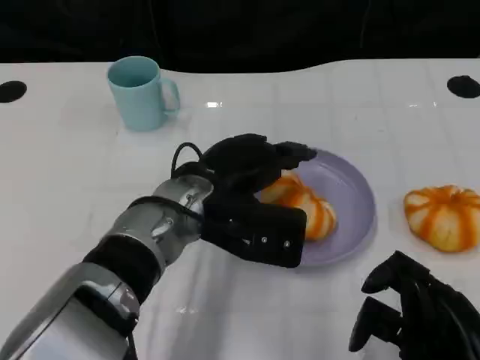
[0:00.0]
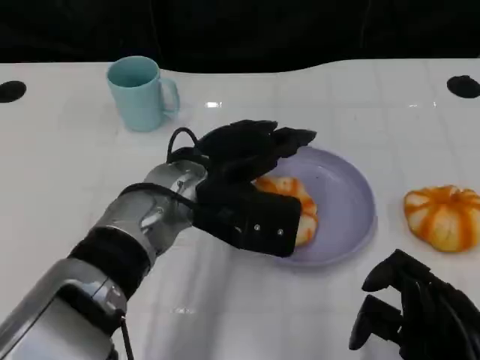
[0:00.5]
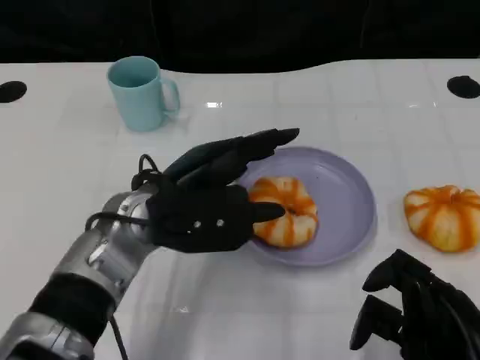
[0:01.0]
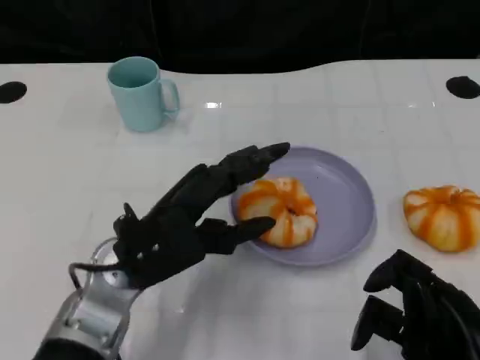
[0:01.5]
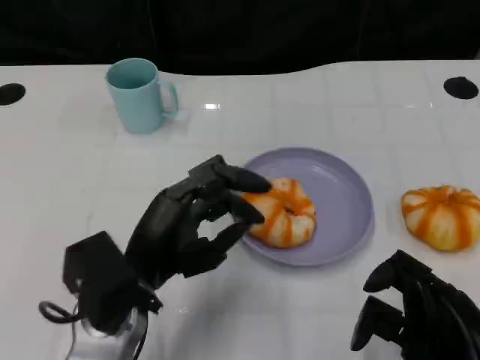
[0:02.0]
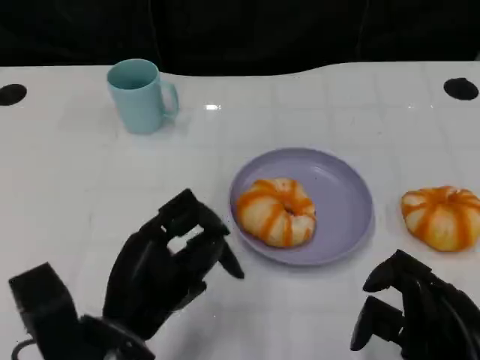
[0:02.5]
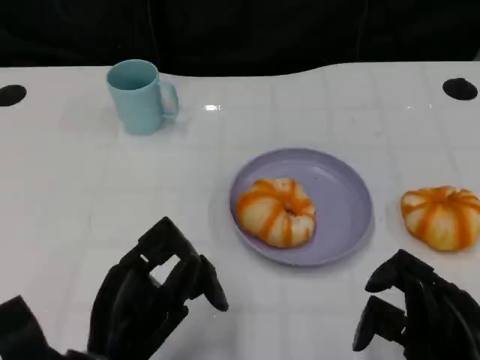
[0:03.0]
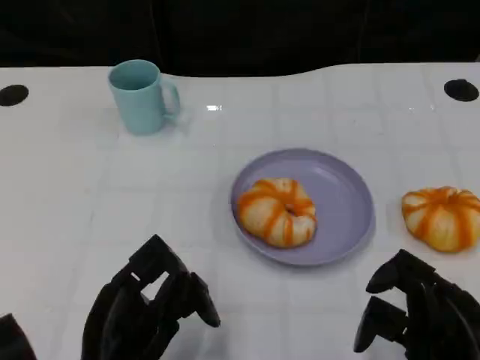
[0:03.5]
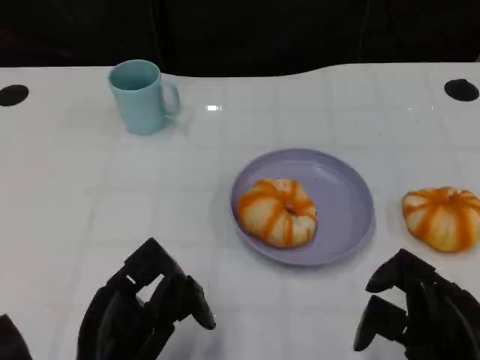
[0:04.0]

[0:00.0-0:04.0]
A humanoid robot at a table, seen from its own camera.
Task of the whole recording: Grasp the bread from the table and place it into the plate.
0:00.0 to 0:02.0: The left hand heads backward and to the left, covering some 10 cm.
0:02.0 to 0:04.0: The left hand goes approximately 5 cm backward.

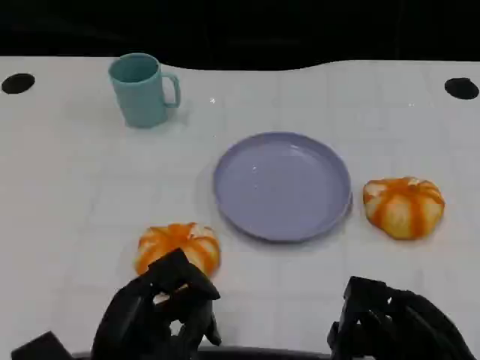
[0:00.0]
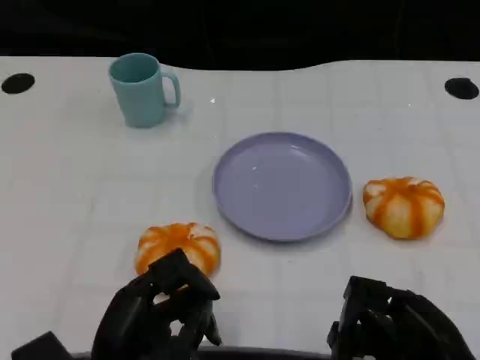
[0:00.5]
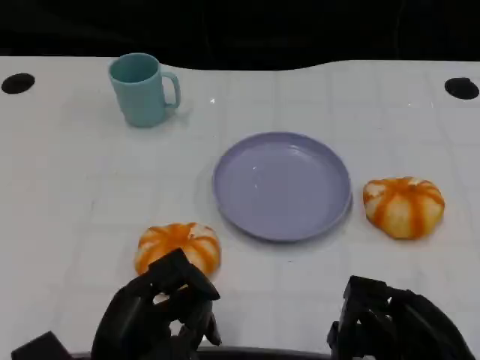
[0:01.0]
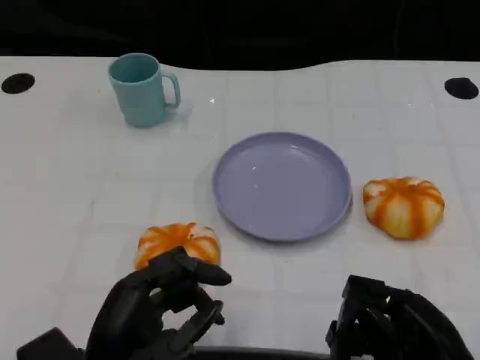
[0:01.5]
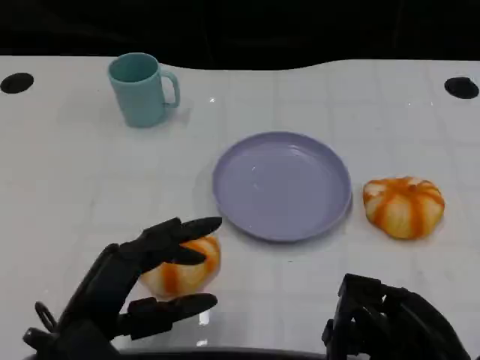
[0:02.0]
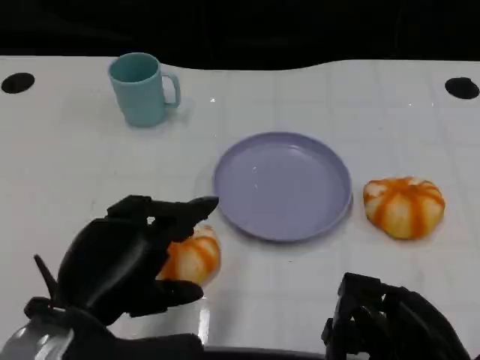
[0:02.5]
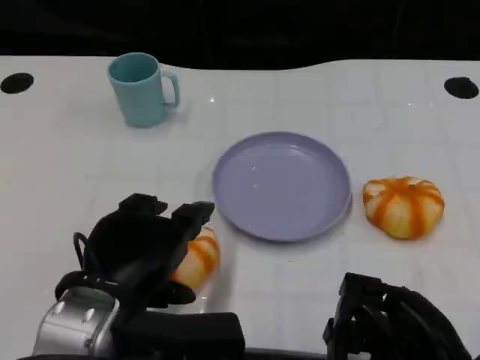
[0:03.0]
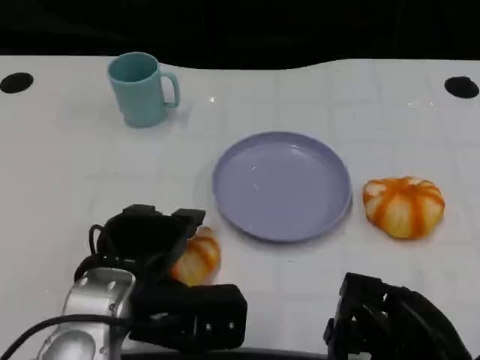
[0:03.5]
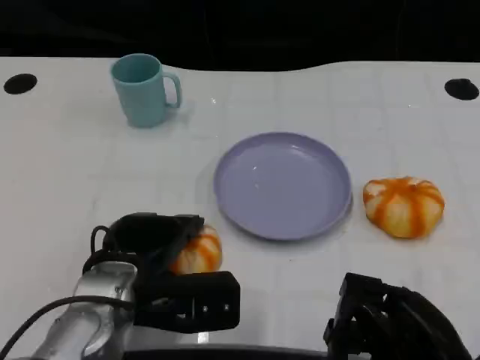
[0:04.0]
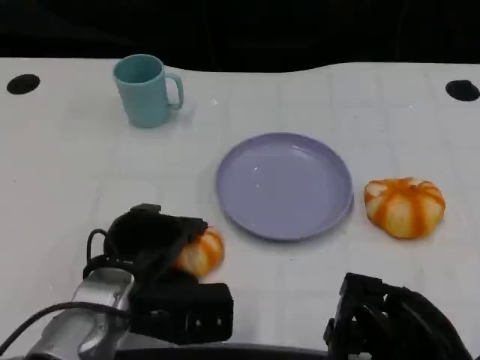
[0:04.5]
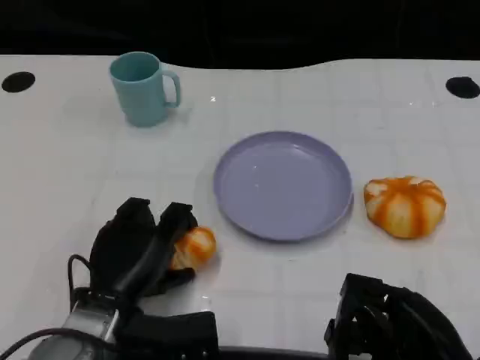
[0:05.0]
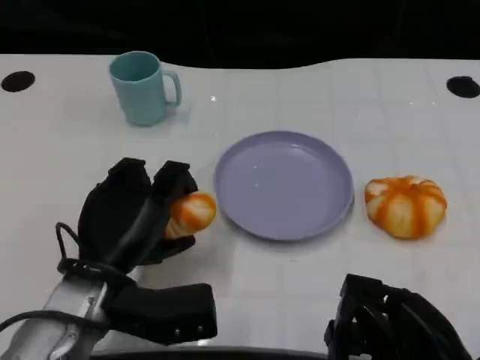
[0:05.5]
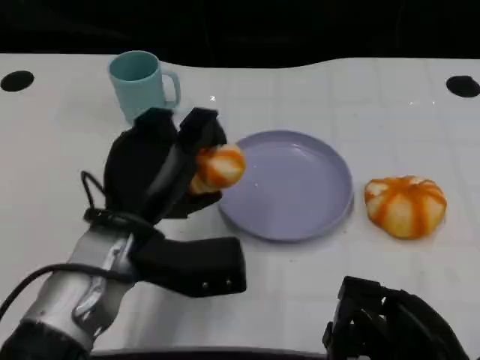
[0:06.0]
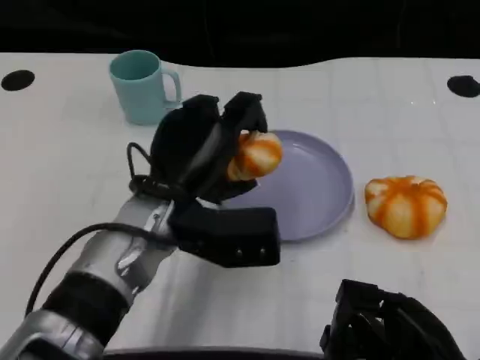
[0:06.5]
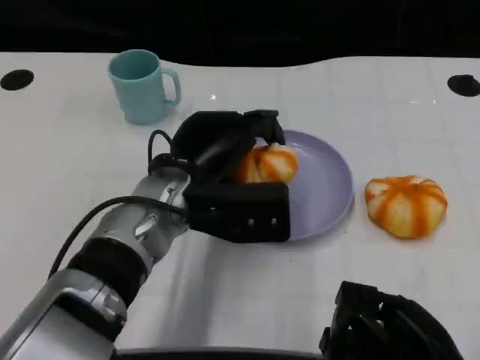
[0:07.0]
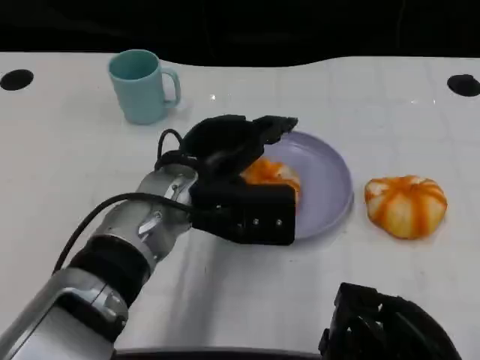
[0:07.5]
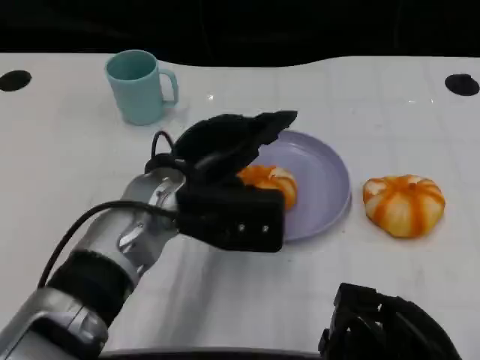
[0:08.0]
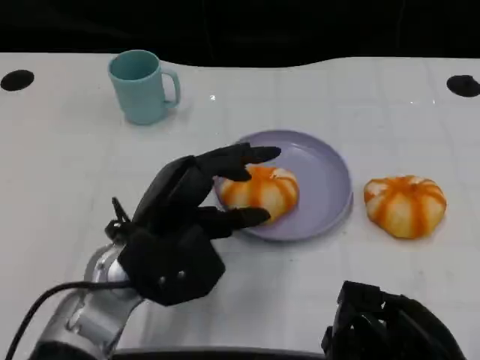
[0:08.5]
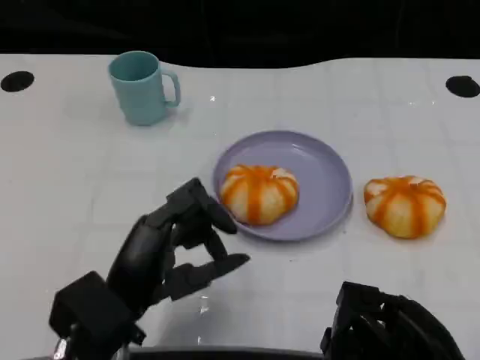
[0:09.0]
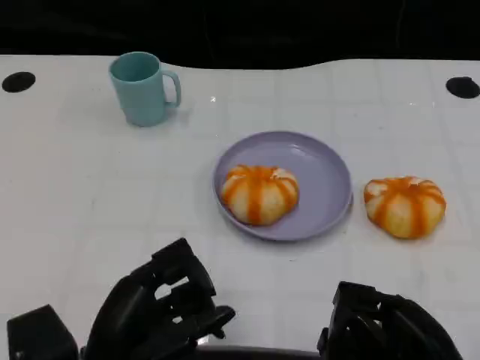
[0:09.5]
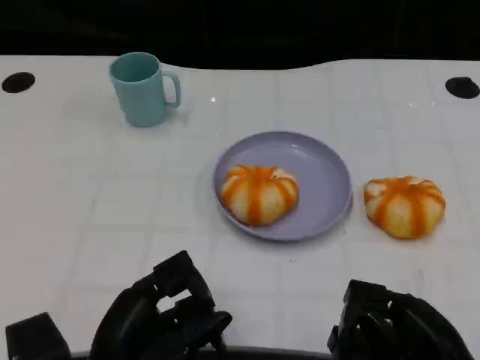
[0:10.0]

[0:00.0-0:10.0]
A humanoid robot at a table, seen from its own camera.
Task of the whole recording: Grasp the bread from the table and place it into the plate.
0:00.0 to 0:02.0: The left hand travels upward by approximately 5 cm.
0:02.0 to 0:04.0: The left hand goes about 10 cm forward and to the right.
0:04.0 to 0:06.0: The left hand moves some 5 cm.
0:06.0 to 0:08.0: The left hand ends up some 5 cm from where it was.
0:08.0 to 0:10.0: The left hand is displaced backward, downward and to the left by about 20 cm.

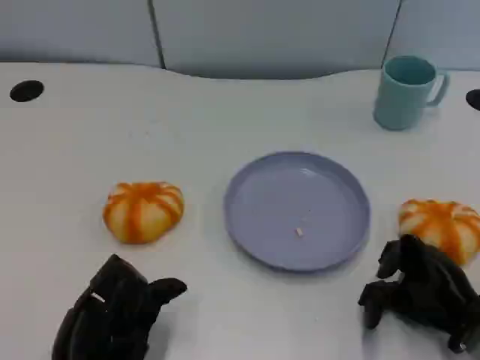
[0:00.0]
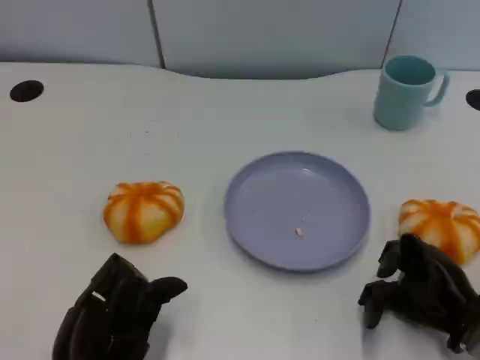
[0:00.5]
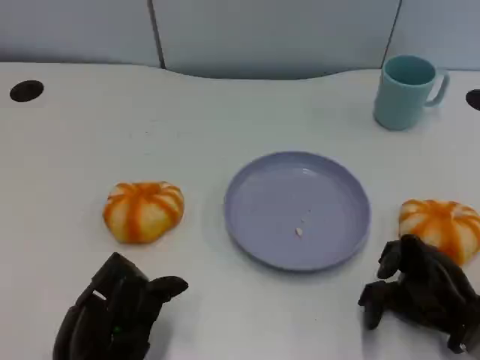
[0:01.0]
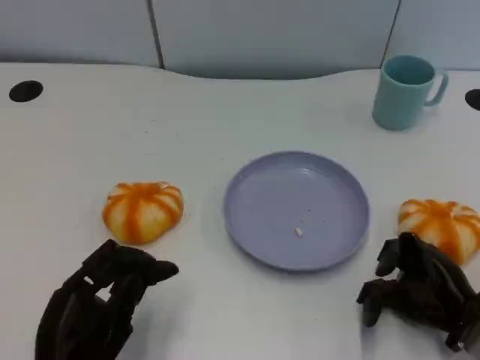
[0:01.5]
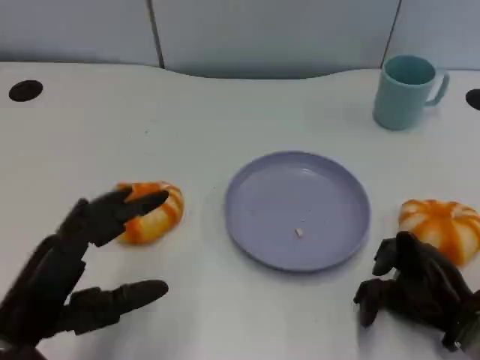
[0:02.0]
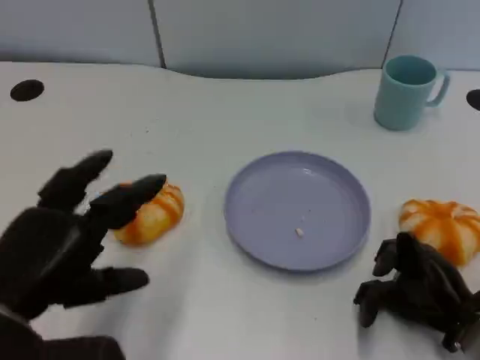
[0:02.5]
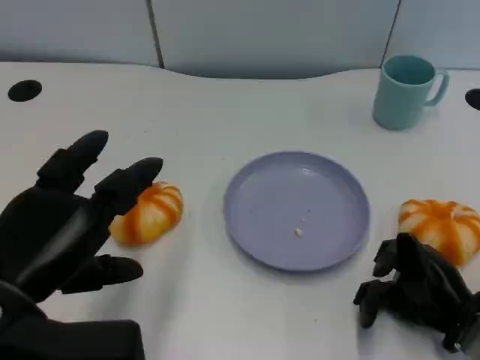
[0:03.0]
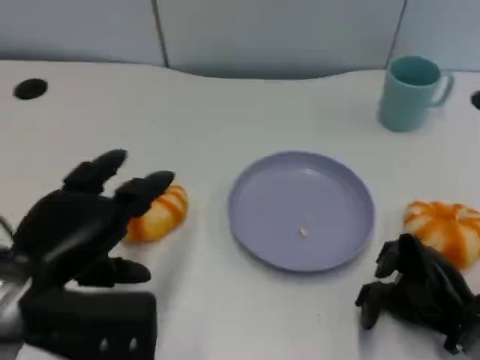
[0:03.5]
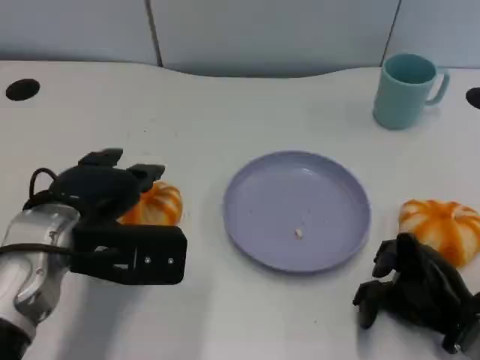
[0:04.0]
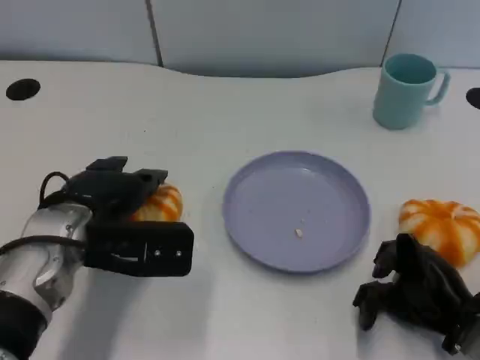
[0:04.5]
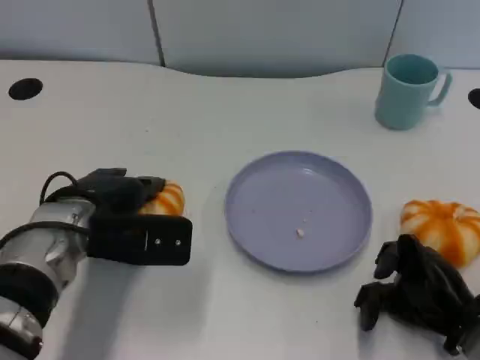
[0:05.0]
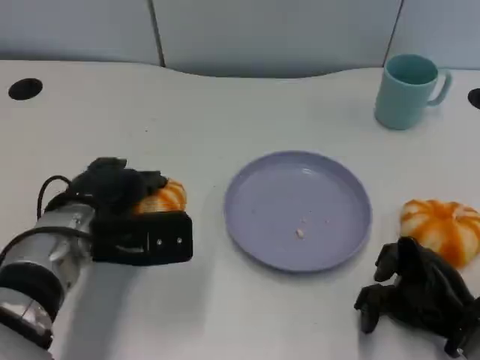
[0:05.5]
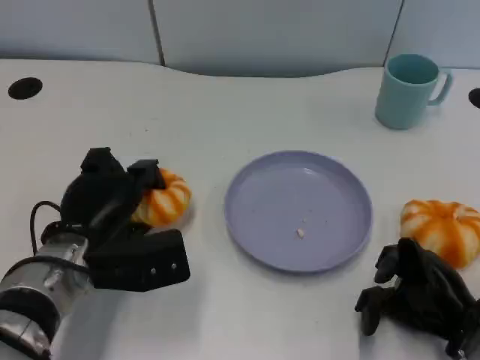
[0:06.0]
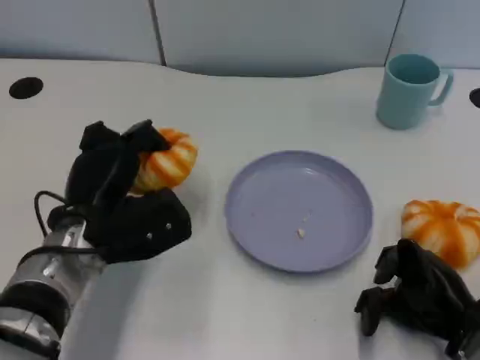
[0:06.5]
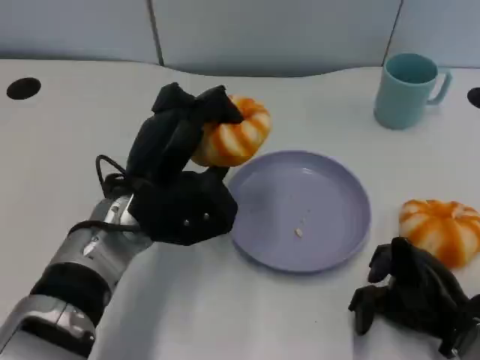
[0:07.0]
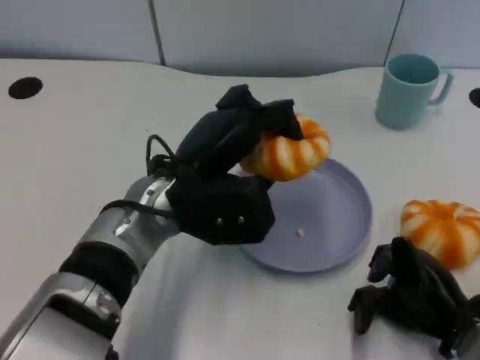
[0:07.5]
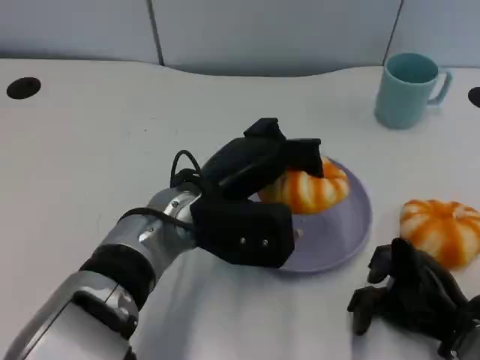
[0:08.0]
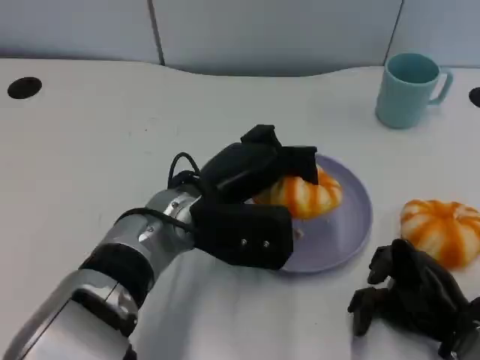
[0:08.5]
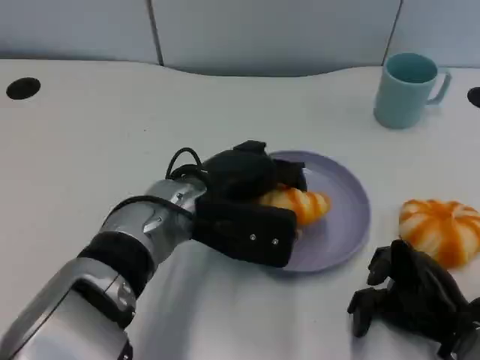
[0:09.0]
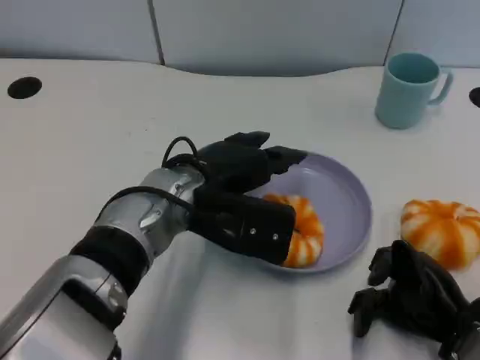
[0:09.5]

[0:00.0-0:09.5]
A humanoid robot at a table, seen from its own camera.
Task of the whole recording: Grasp the bread from the table and place it into the plate.
0:00.0 to 0:02.0: The left hand shifts approximately 10 cm upward.
0:02.0 to 0:04.0: The left hand goes some 15 cm forward.
0:04.0 to 0:05.5: The left hand shifts by some 5 cm.
0:05.5 to 0:07.5: The left hand moves to the right and upward, about 10 cm.

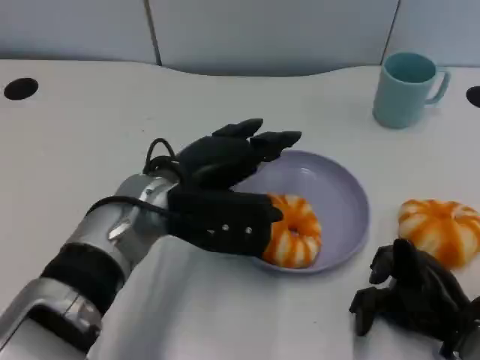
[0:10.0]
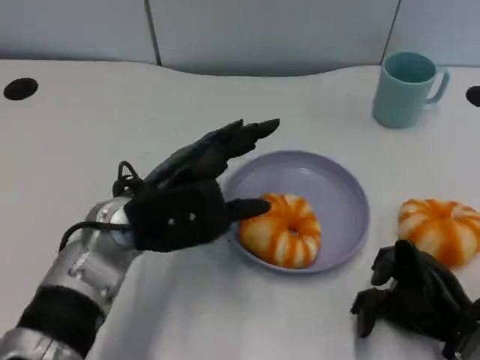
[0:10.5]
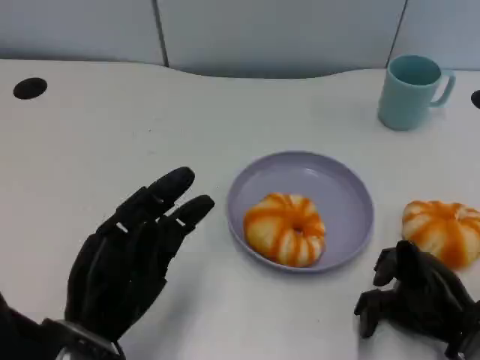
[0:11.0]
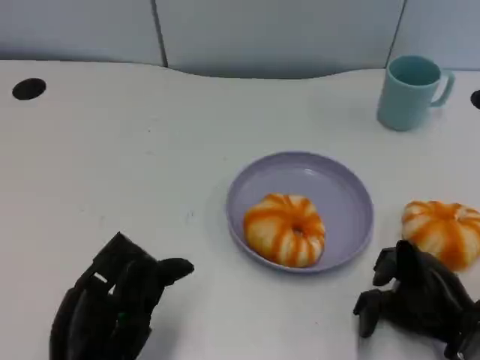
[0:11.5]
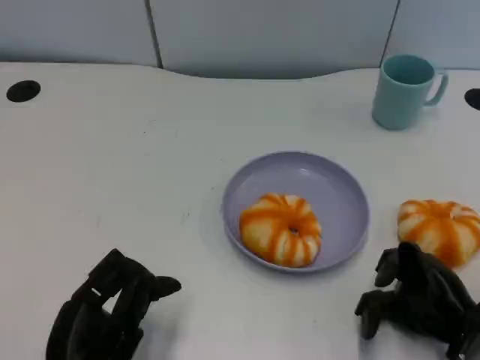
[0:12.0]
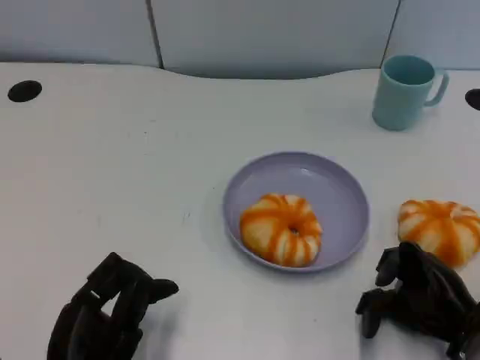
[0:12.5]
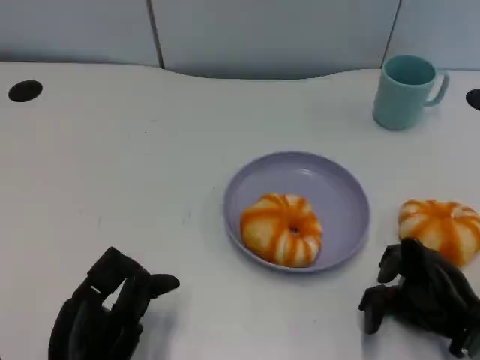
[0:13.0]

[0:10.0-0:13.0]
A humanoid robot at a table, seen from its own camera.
Task of the whole recording: Grasp the bread from the table and place it into the plate.
0:10.0 to 0:11.5: The left hand goes about 20 cm backward, to the left and downward.
0:11.5 to 0:13.0: There are only small adjustments of the hands.
